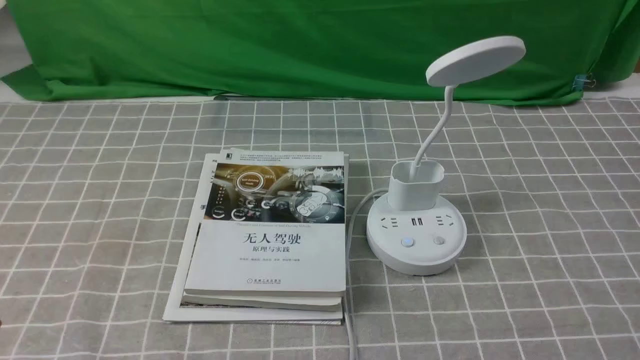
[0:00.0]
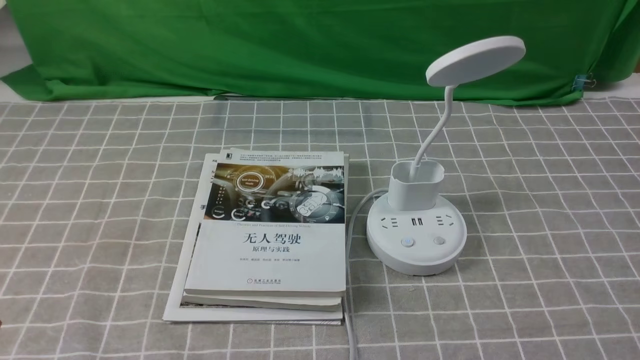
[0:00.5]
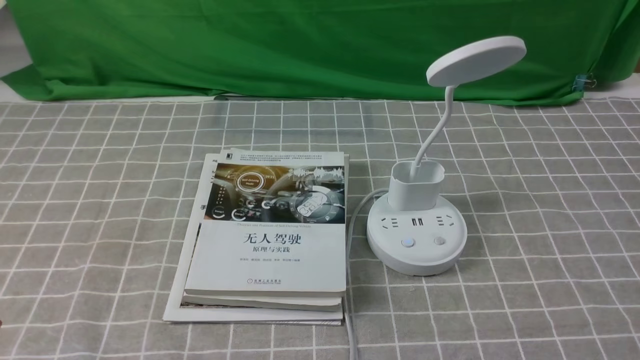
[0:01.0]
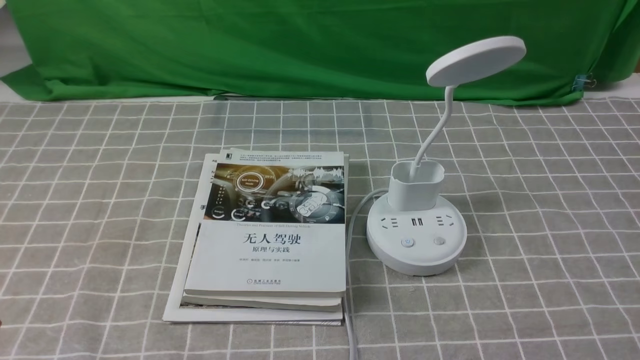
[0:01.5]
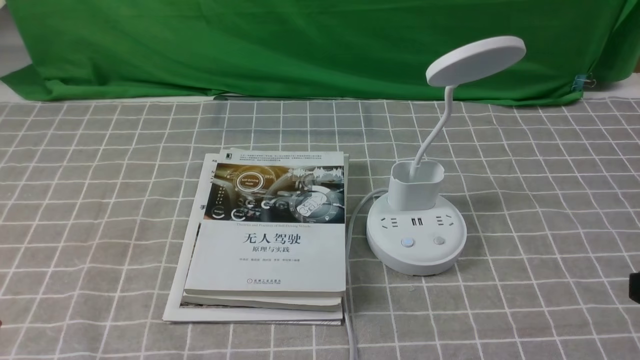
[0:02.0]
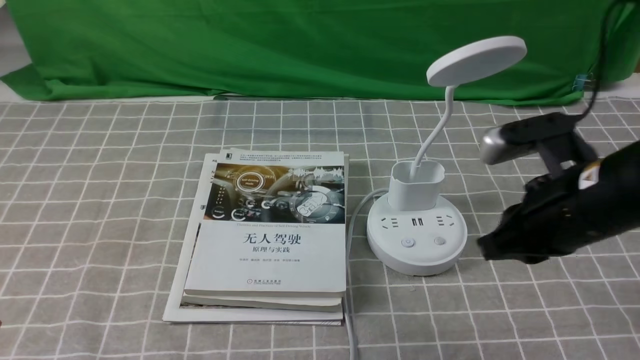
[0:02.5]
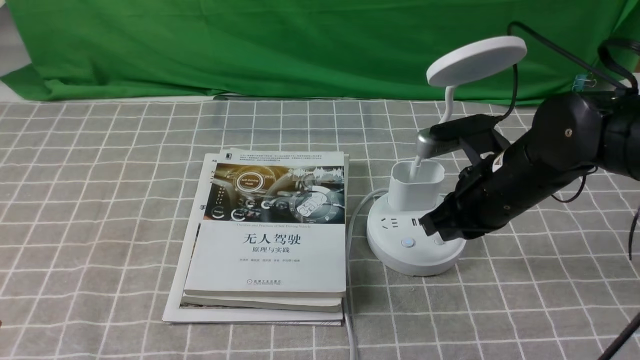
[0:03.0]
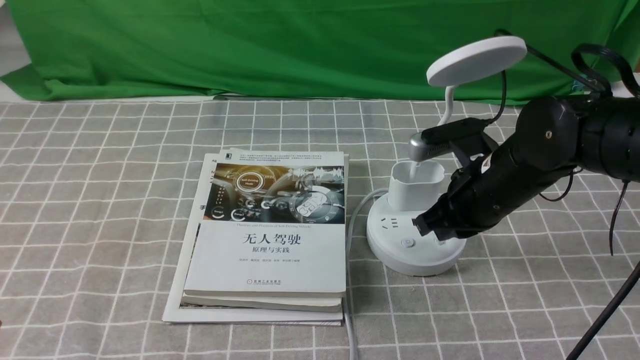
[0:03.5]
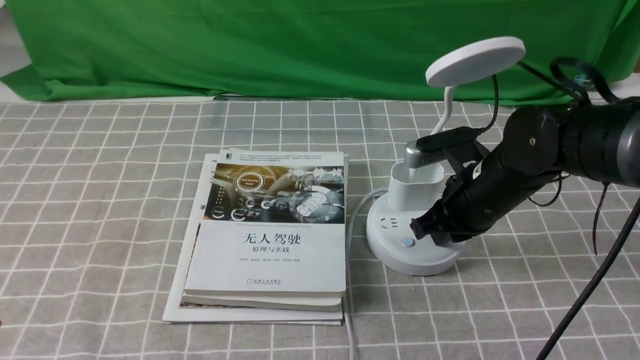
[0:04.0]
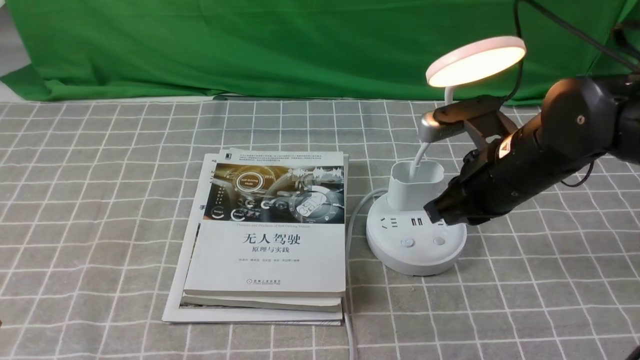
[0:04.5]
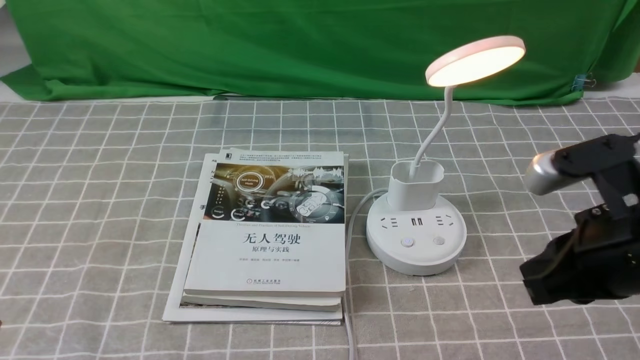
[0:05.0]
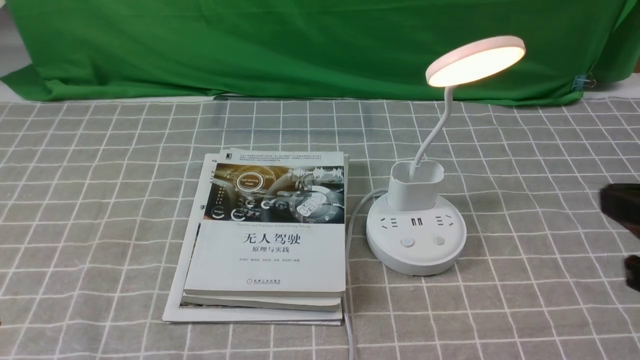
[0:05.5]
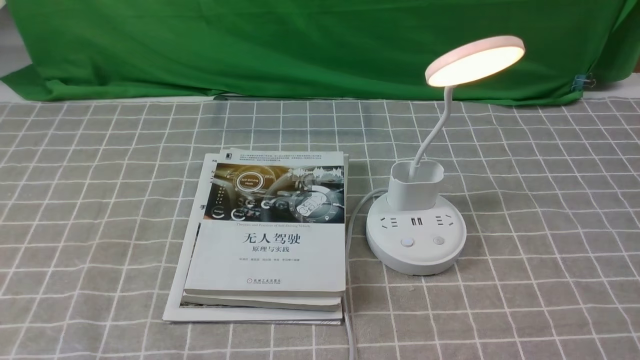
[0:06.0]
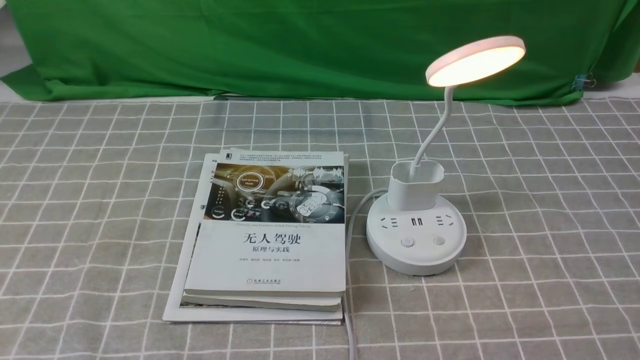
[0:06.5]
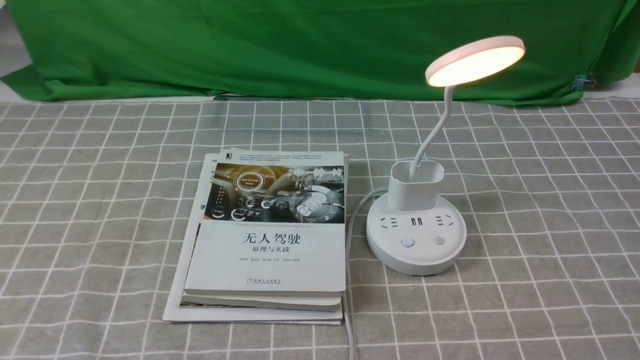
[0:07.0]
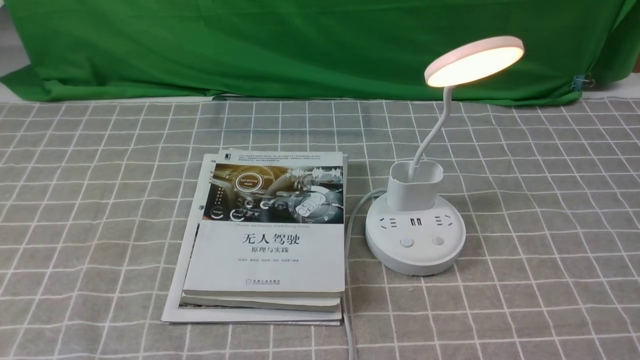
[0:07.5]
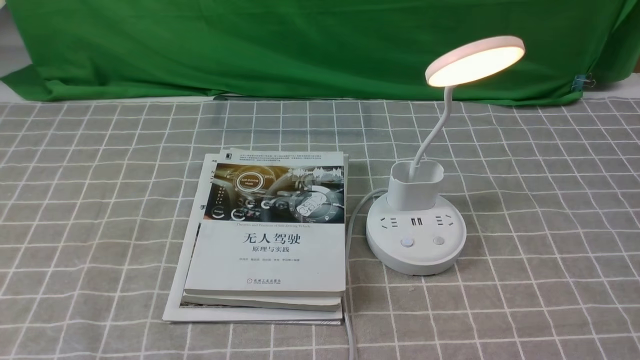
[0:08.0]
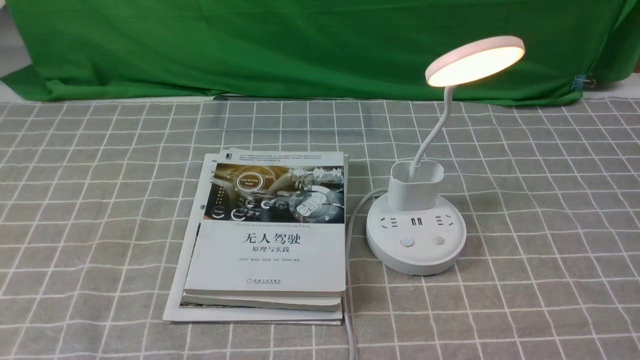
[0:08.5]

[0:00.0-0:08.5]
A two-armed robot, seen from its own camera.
Step, 0:00.0 to 0:04.0: use the right arm to press the button switch on the lamp holder.
0:02.0 to 0:04.0: The right gripper shifts about 30 cm forward, downward and to the left.
0:04.0 to 0:06.5: The right gripper moves backward and to the right, approximately 30 cm.
